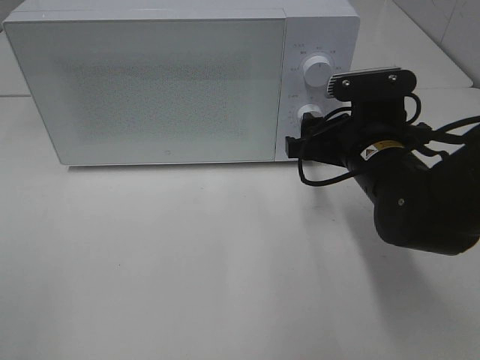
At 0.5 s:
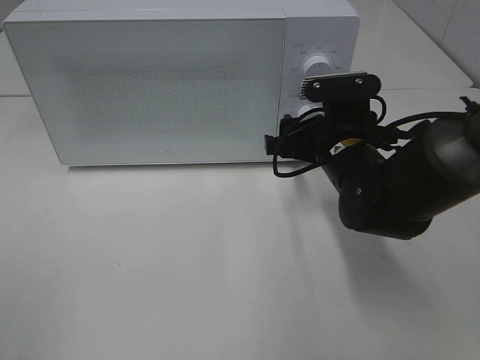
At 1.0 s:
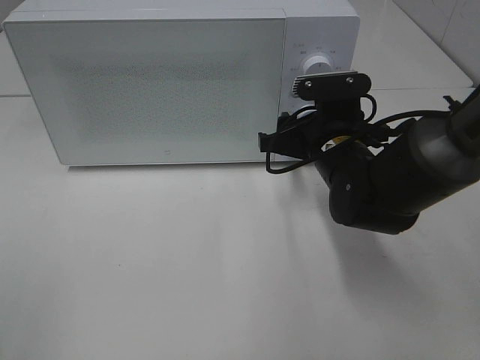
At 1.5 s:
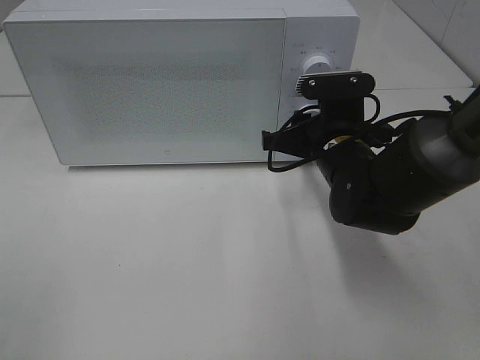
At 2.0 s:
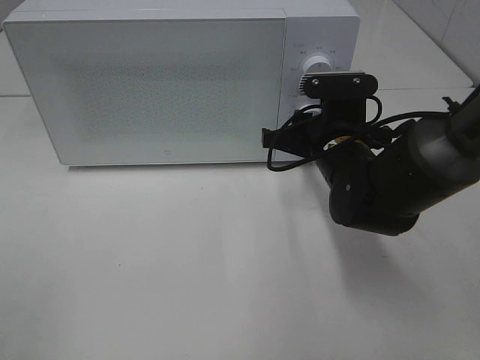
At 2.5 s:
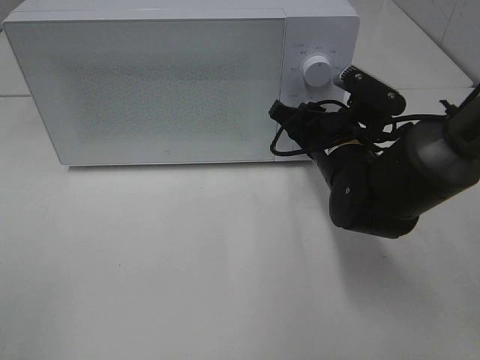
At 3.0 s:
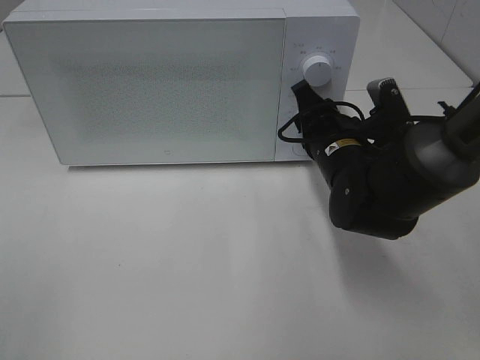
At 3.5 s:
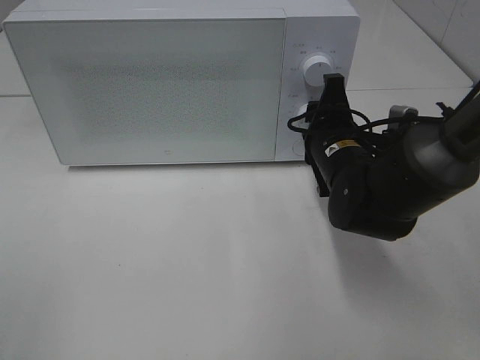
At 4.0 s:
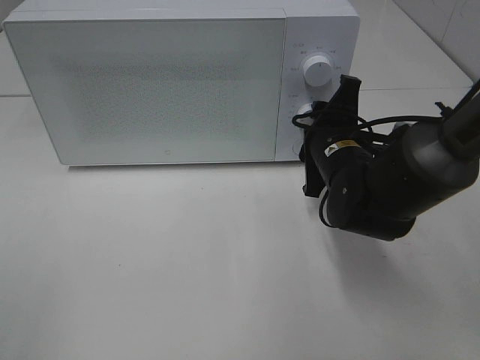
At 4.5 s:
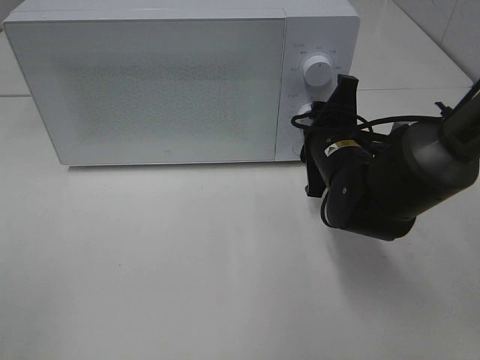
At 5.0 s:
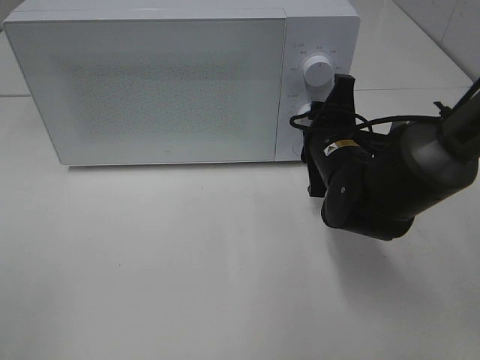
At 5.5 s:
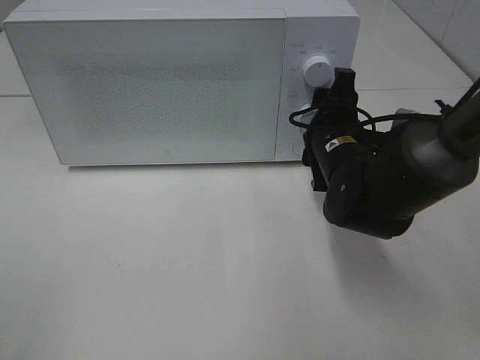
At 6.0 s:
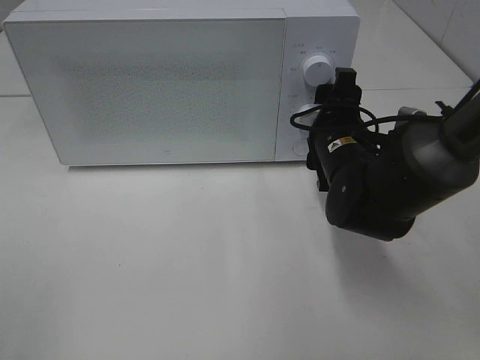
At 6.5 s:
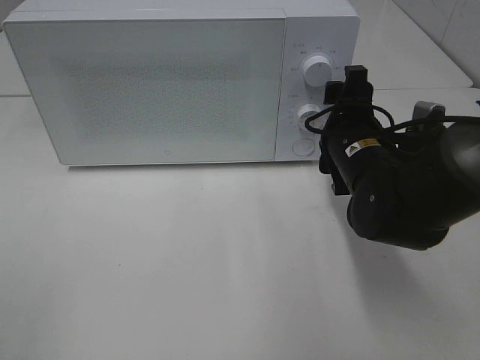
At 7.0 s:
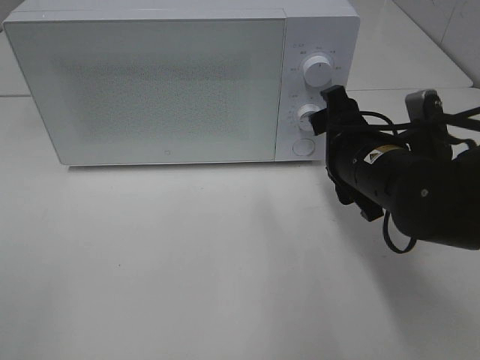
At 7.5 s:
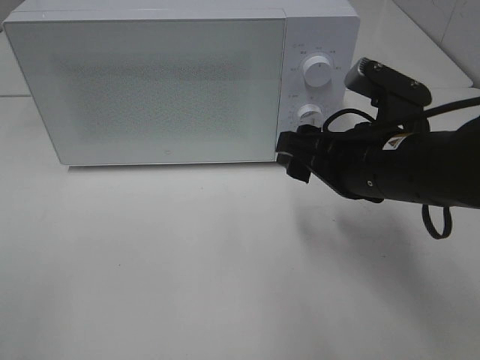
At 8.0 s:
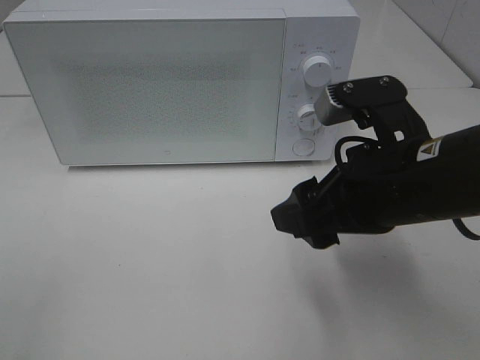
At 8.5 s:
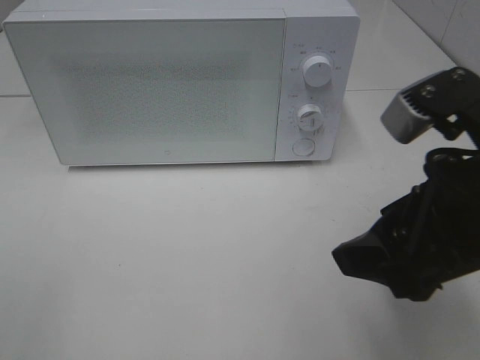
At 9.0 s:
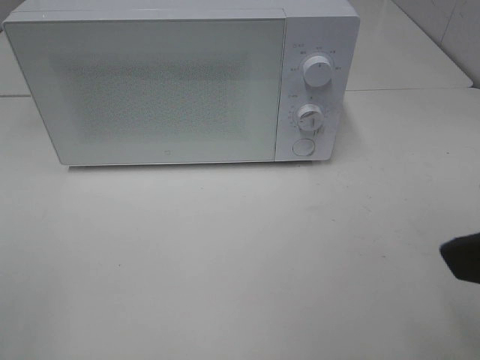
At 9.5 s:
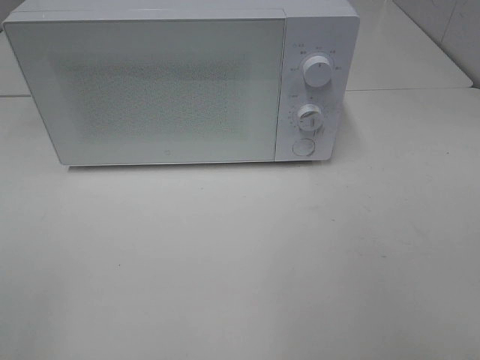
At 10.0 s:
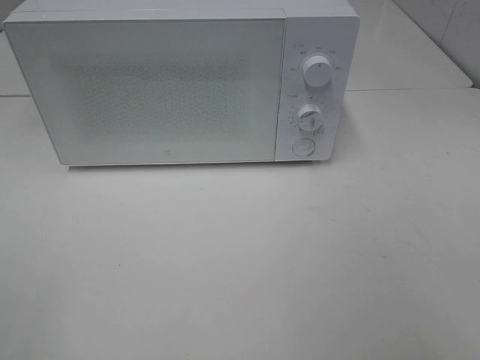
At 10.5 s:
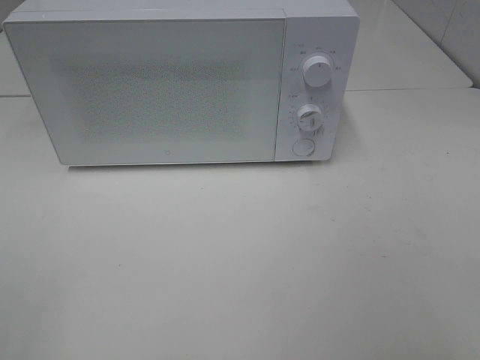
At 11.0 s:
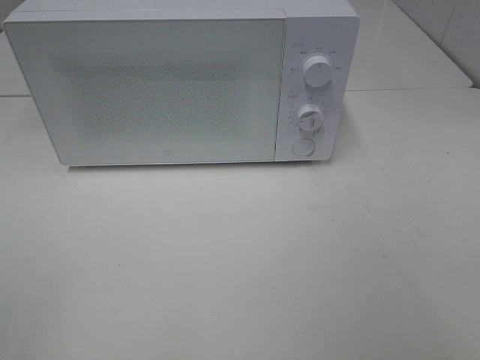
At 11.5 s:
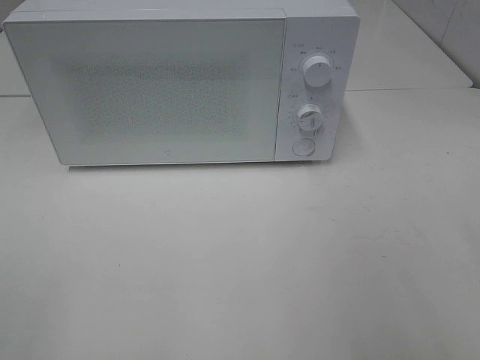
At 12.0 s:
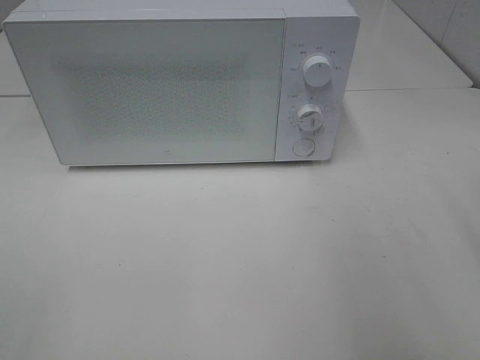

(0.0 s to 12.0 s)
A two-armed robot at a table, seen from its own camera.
Task of the whole recording: Heat Sandwich.
Step, 0.0 s - 6.5 s: Right hand: twist timer button.
0.0 s - 2.0 s: The right gripper closes up.
4.0 s - 6.0 s: There are only small adjustments of the grippers.
6.0 s - 8.0 s: The right gripper shifts roughly 15 cm backward and upward.
8.0 s - 10.0 s: The right gripper shifts roughly 25 cm backward, to the right and upward.

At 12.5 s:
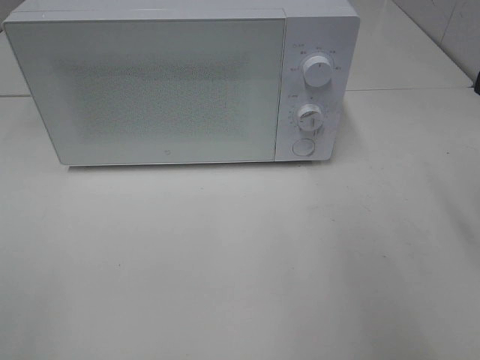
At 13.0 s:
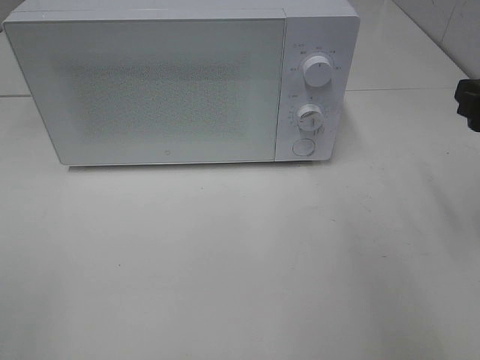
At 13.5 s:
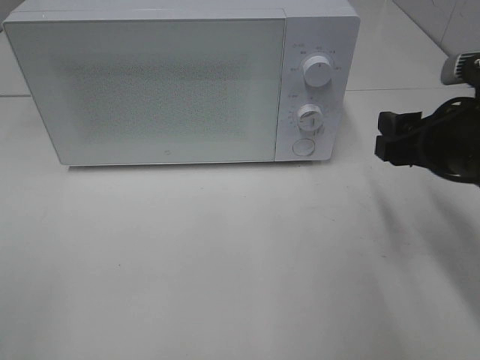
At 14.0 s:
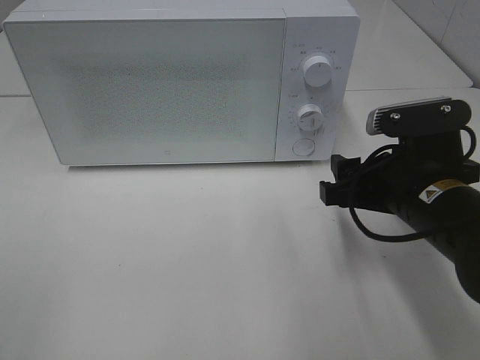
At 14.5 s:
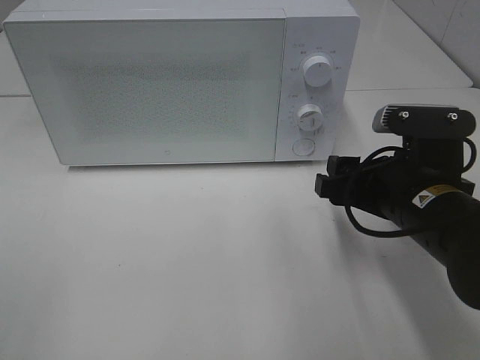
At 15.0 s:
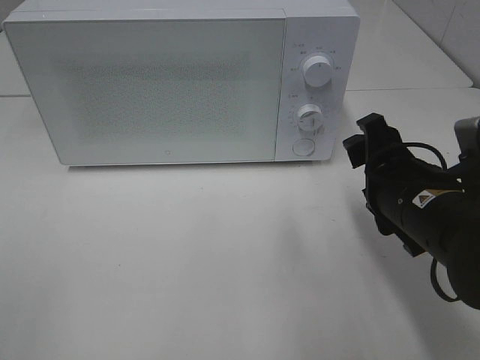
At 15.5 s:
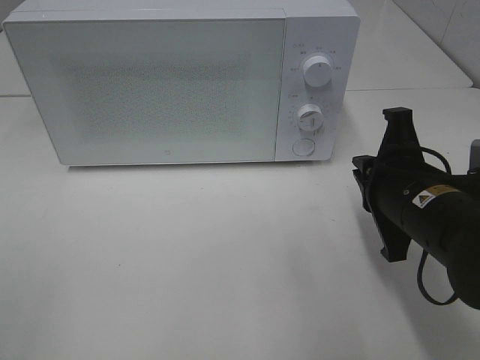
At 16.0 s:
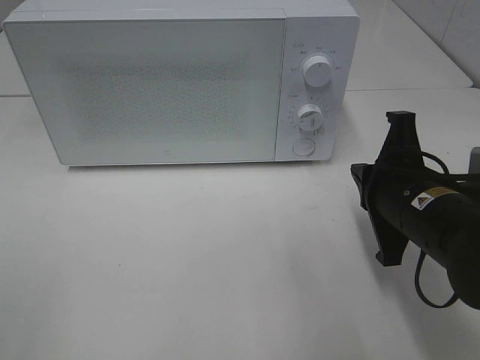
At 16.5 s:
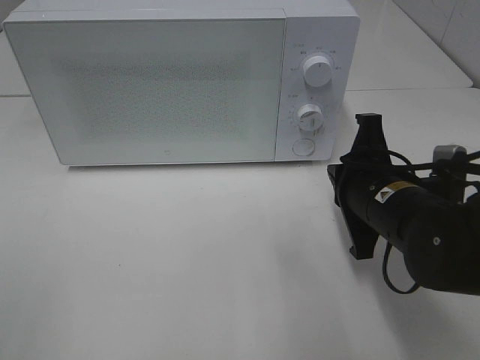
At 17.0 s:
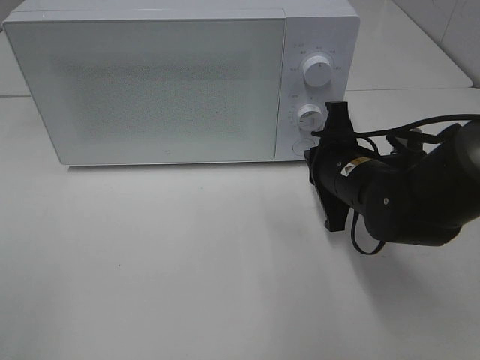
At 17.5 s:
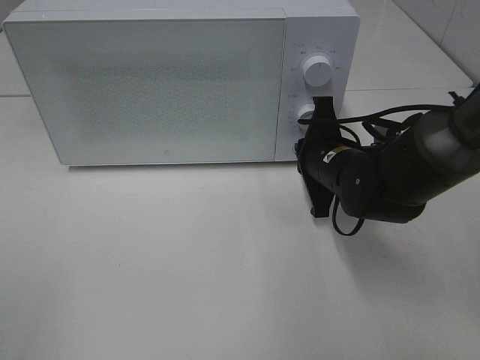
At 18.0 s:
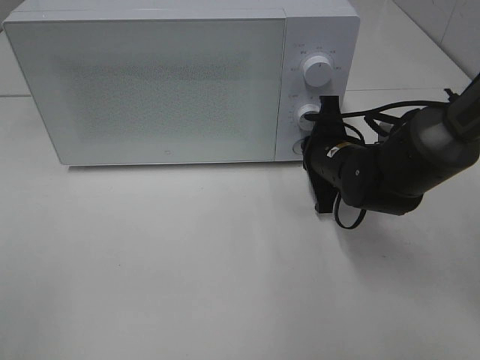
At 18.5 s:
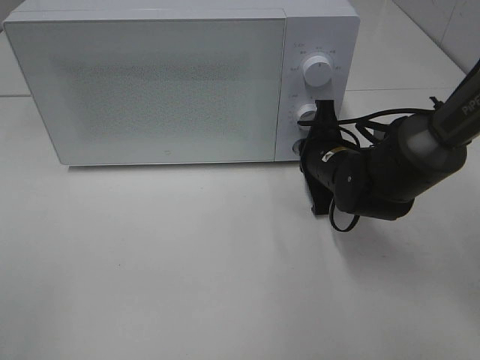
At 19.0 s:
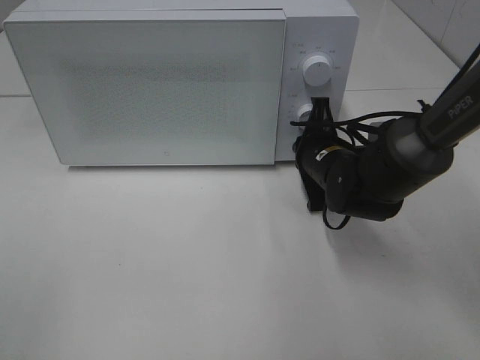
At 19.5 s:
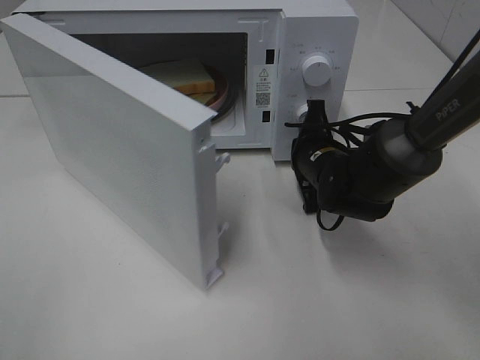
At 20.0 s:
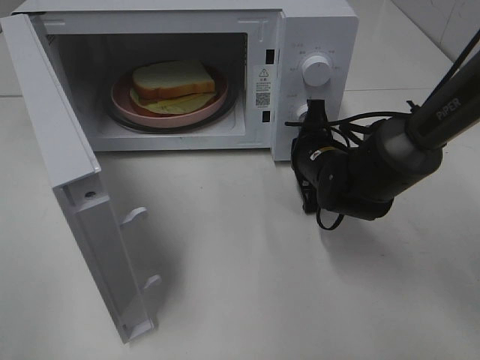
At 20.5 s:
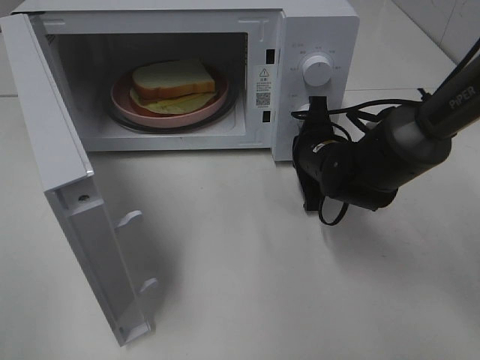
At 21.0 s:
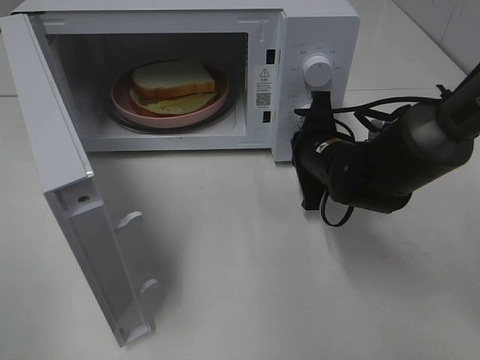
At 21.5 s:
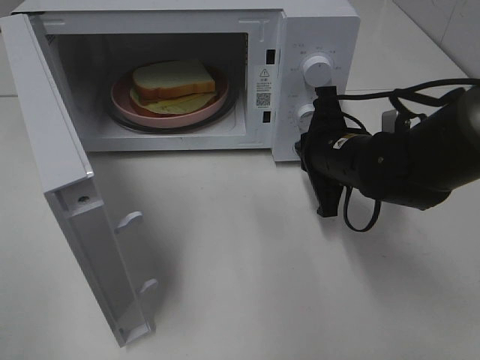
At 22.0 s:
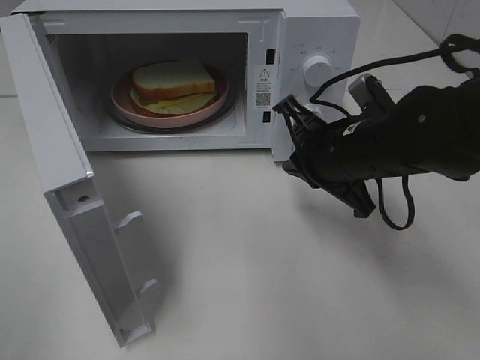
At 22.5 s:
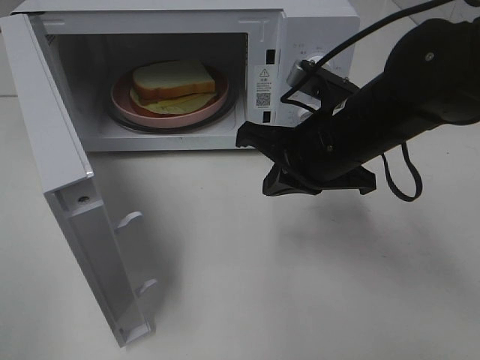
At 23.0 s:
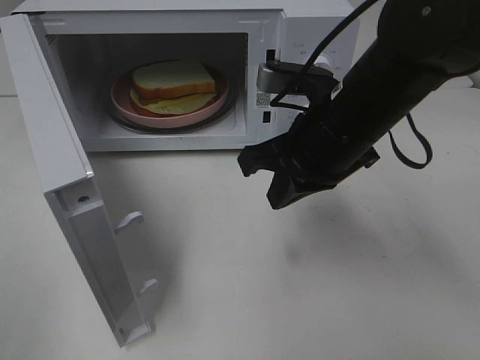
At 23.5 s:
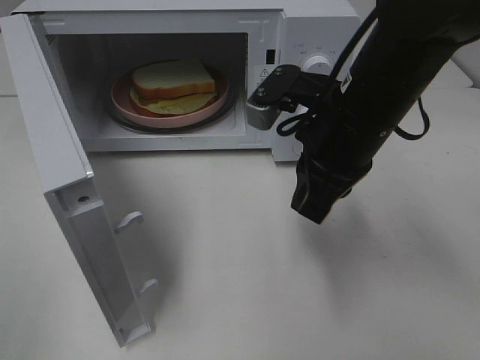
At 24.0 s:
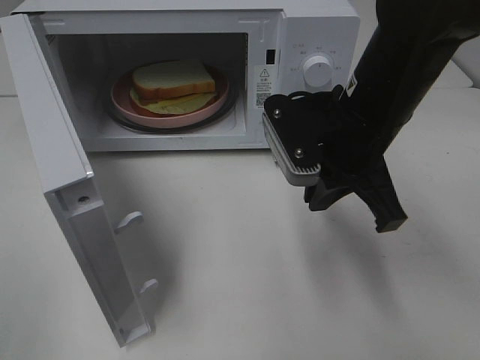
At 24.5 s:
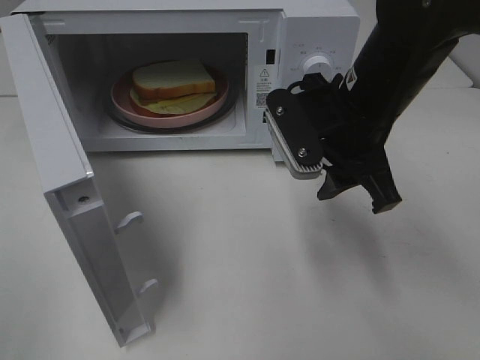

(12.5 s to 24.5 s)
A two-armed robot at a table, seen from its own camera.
Task of the whole recording: Heat Sandwich.
Step, 12.5 s - 21.0 s: Right hand: press the switch.
12.5 s - 14.5 s: The right gripper travels downward and to the left by about 15 cm.
14.5 s - 16.5 s: The right gripper closes up.
16.5 s - 18.5 s: The right gripper heads forward, covering approximately 10 cm.
20.5 s - 22.5 s: The right gripper travels upward and backward by about 15 cm.
22.5 s - 24.5 s: The right gripper opens up.

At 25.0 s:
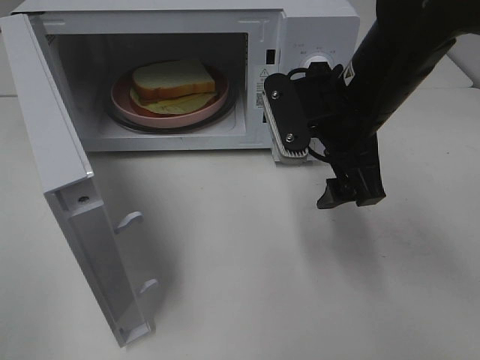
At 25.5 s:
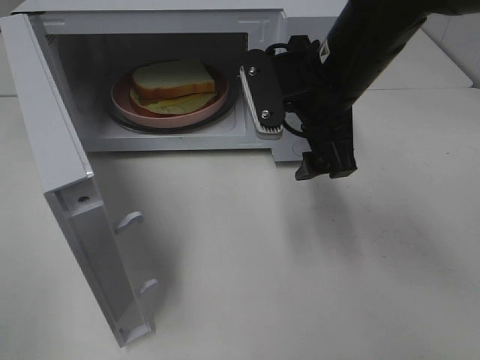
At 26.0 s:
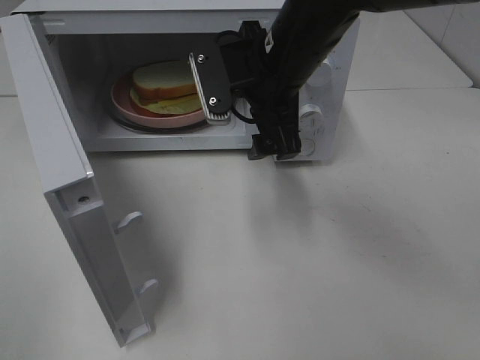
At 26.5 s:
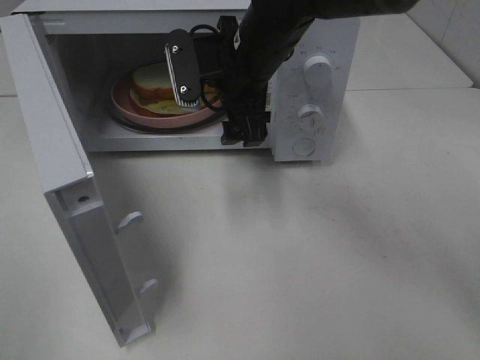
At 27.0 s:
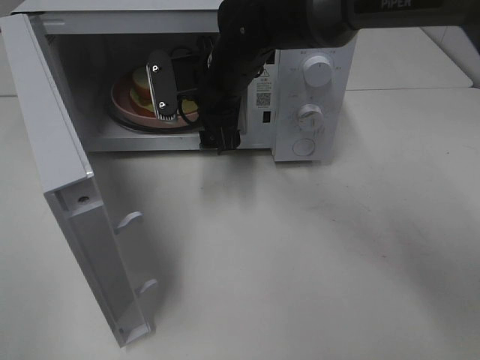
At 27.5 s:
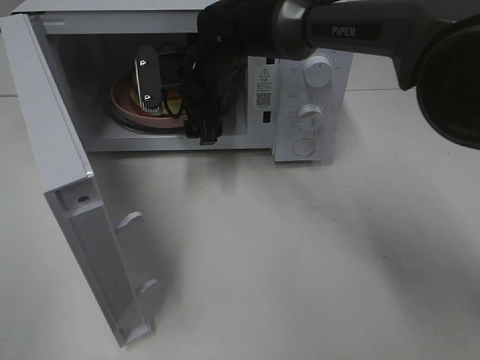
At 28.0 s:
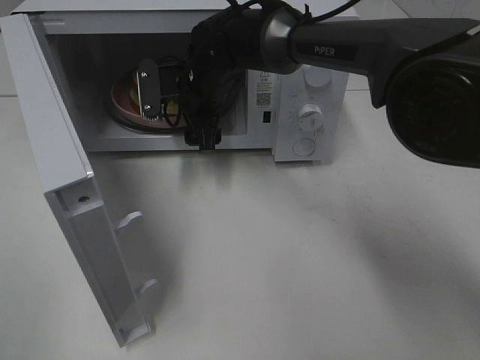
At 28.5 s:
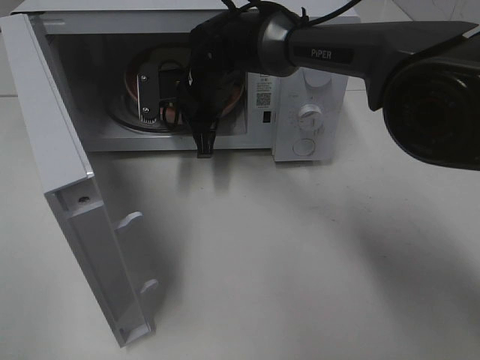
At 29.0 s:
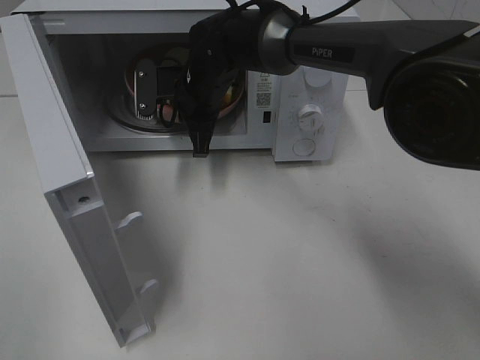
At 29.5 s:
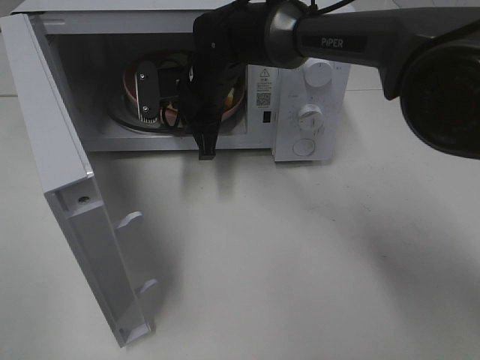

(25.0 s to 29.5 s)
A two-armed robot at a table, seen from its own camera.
Task of the whole recording: Heat Sandwich.
Step, 25.0 s - 29.0 s: Right hand: grab the plate with the sandwich.
25.0 s - 27.0 s: The right gripper shifts roughly 15 cm to the left and forward.
27.0 s - 29.5 s: The right gripper closes up.
